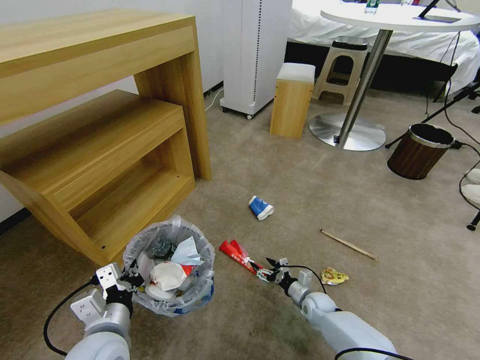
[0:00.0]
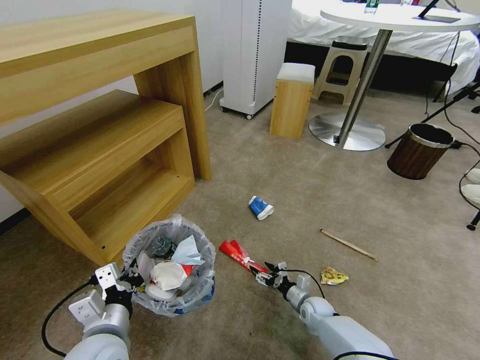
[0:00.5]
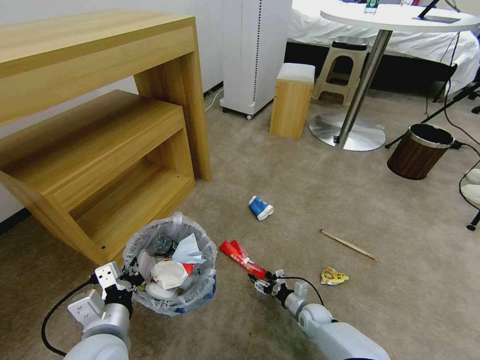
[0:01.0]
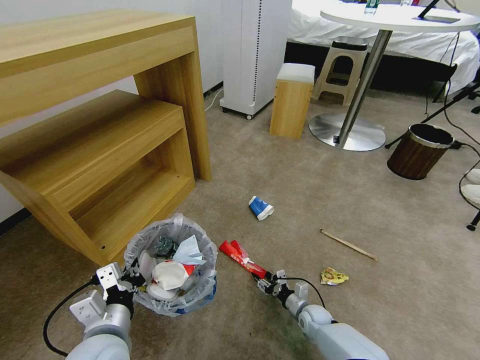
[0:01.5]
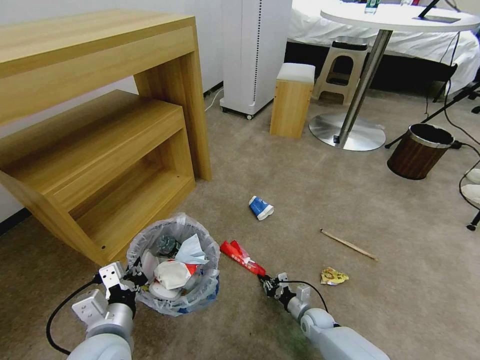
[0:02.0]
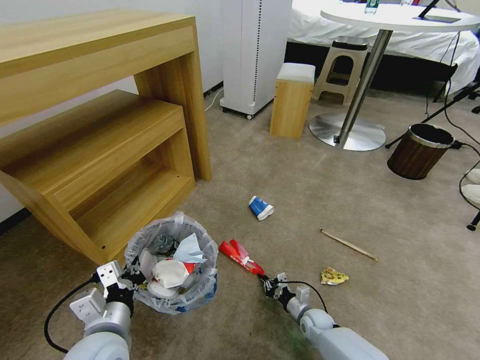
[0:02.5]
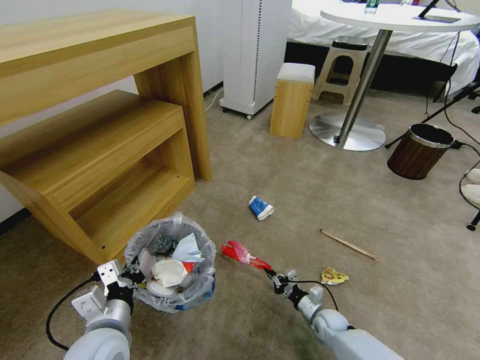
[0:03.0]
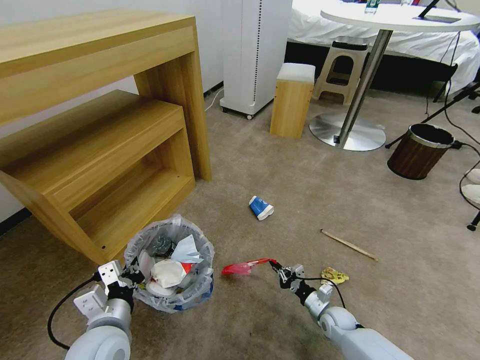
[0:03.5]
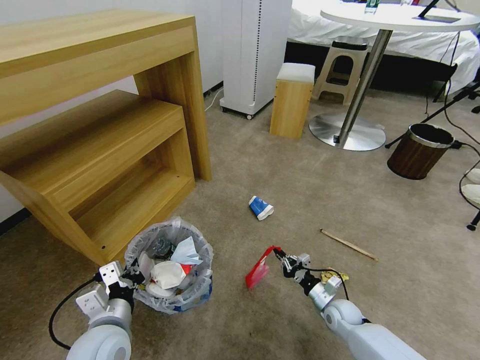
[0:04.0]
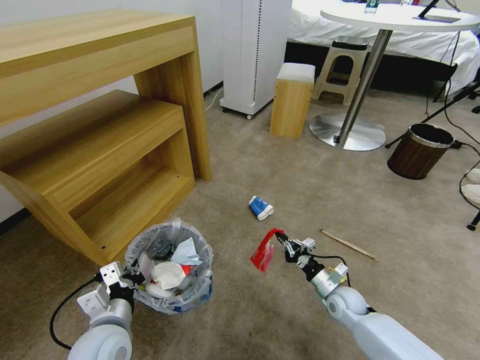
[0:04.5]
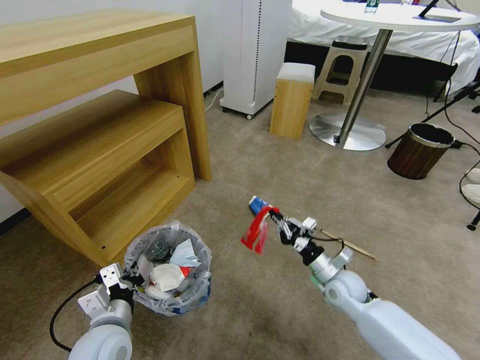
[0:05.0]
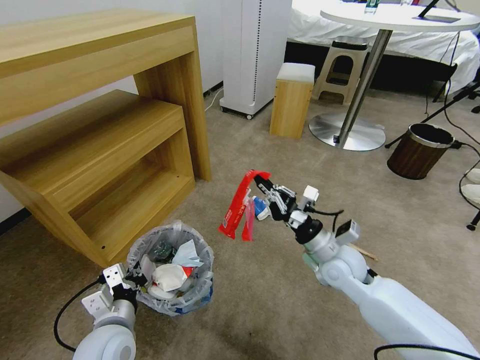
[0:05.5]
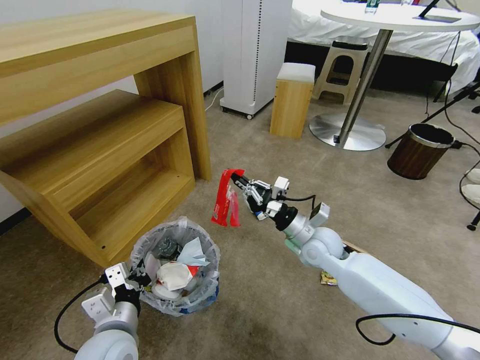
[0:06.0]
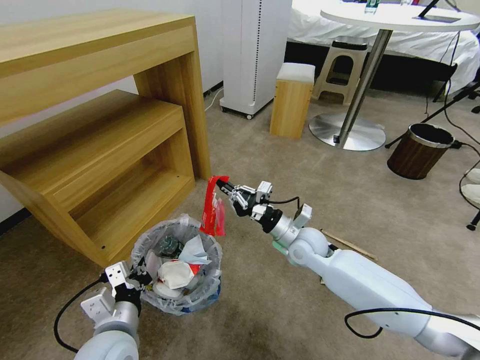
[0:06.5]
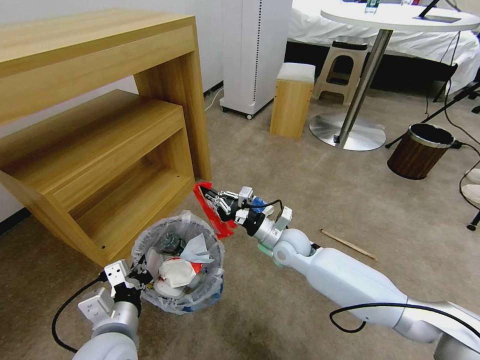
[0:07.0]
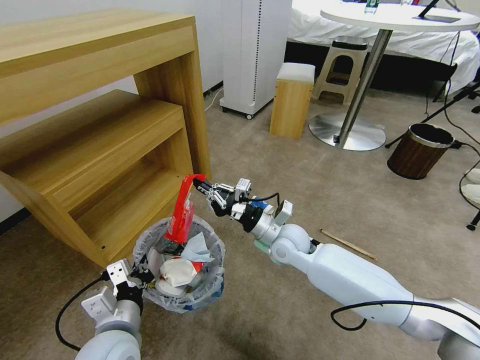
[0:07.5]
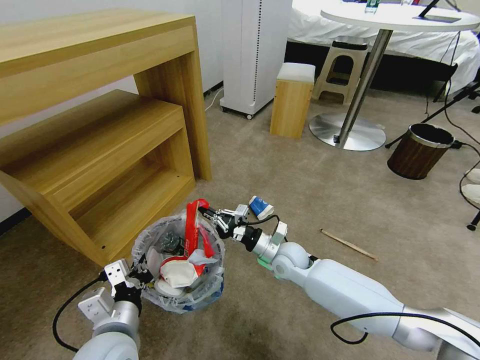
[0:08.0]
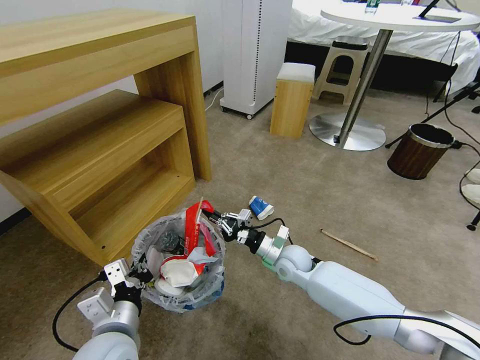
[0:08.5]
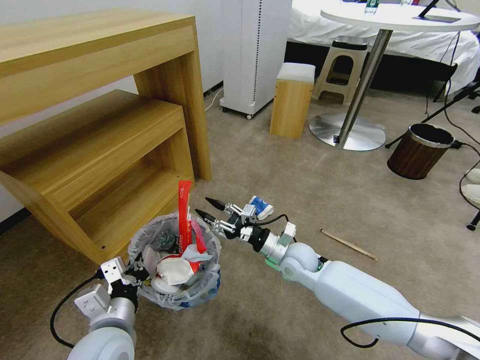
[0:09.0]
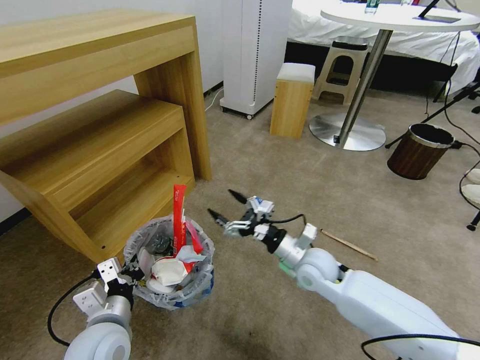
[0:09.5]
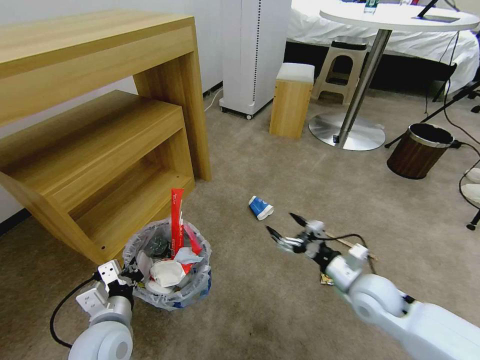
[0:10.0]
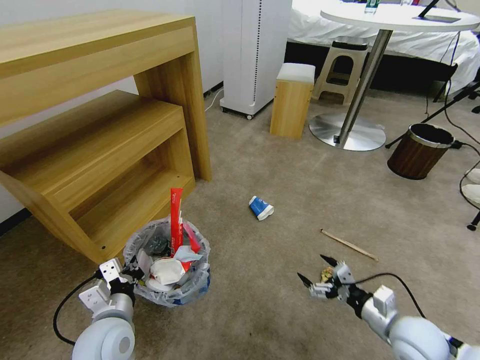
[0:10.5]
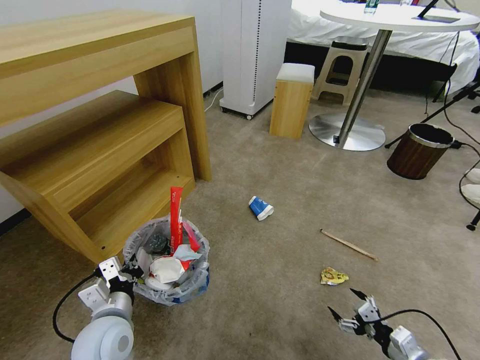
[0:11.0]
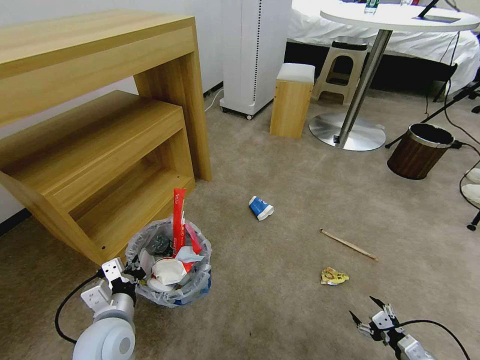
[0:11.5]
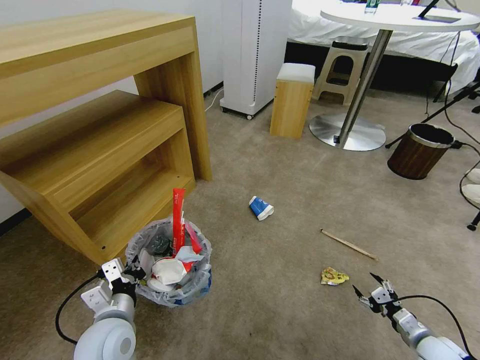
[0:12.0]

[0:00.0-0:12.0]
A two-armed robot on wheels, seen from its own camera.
Task of the whole recording: Pick up the trash bin and place the garbage on the floor into it.
0:00.0 to 0:02.0: The right gripper closes its fingers.
0:02.0 to 0:04.0: The right gripper shifts roughly 10 cm upward and to the right.
0:04.0 to 0:06.0: The right gripper moves upward and to the left, roughly 25 cm.
0:06.0 to 0:08.0: The right gripper is displaced downward and to the left by roughly 10 cm.
0:08.0 to 0:10.0: The left gripper changes place by approximately 5 cm. Meanwhile the right gripper moves to the right and backward, roughly 20 cm, and opens.
0:10.0 to 0:12.0: The right gripper shifts some 25 cm to the right, downward and backward.

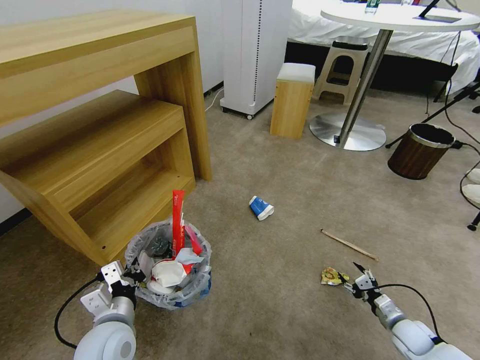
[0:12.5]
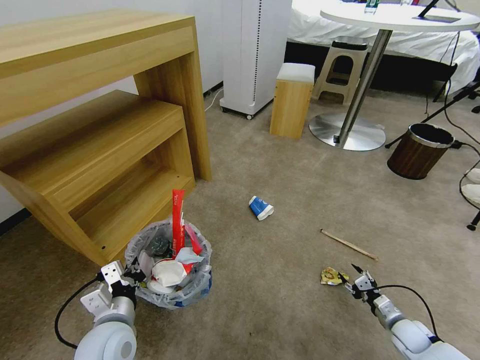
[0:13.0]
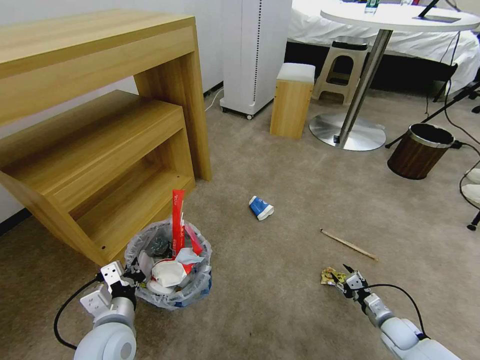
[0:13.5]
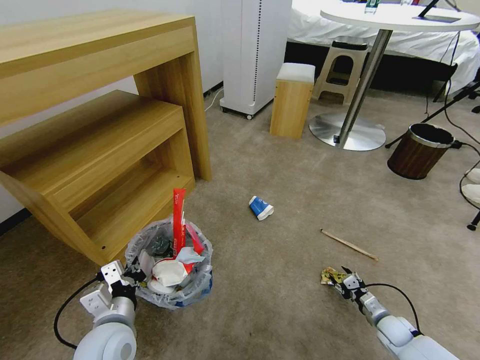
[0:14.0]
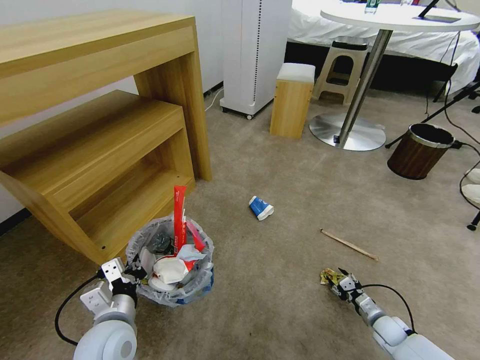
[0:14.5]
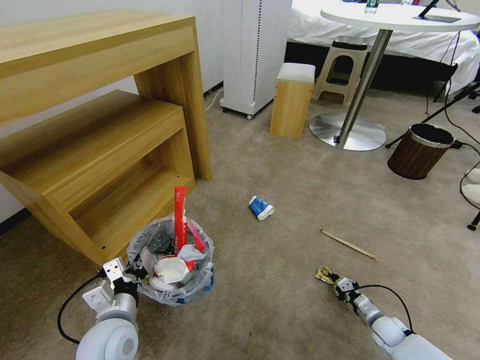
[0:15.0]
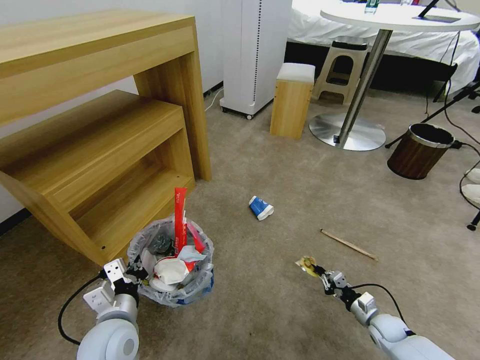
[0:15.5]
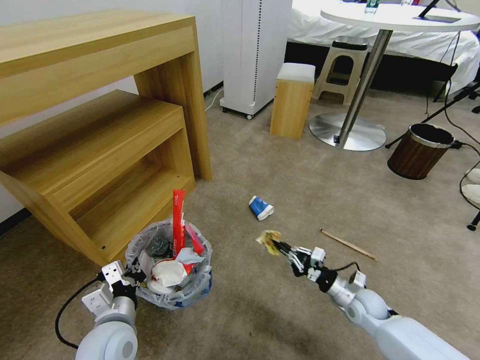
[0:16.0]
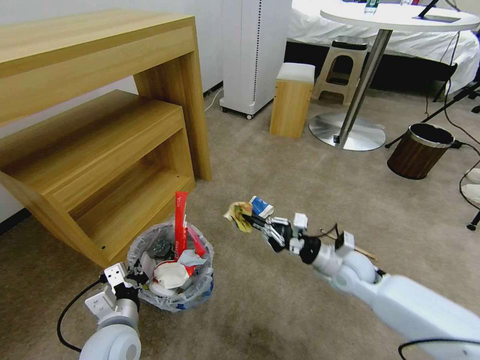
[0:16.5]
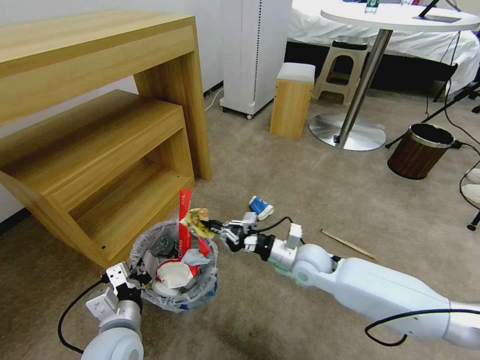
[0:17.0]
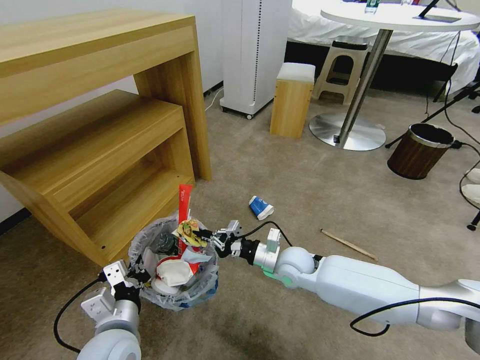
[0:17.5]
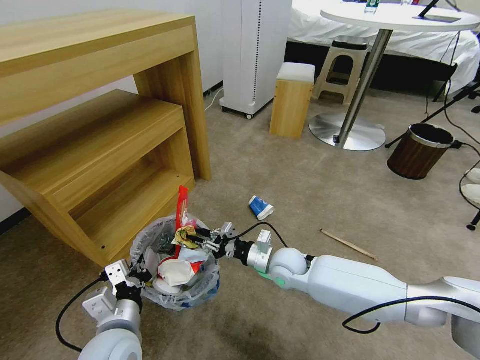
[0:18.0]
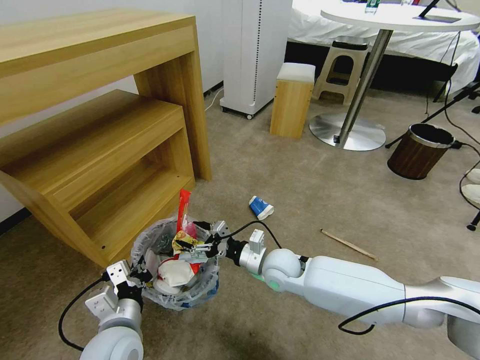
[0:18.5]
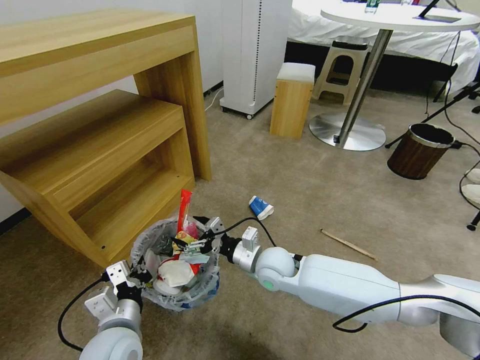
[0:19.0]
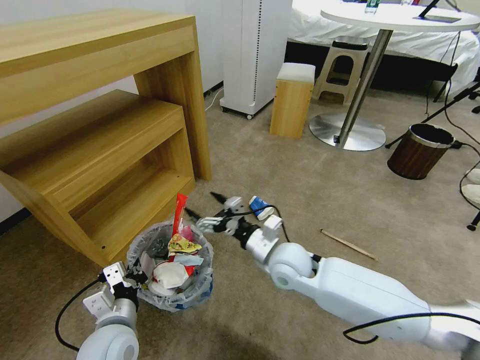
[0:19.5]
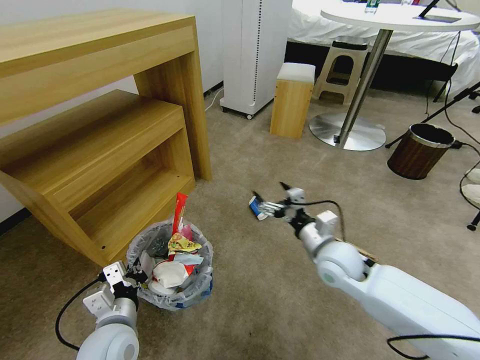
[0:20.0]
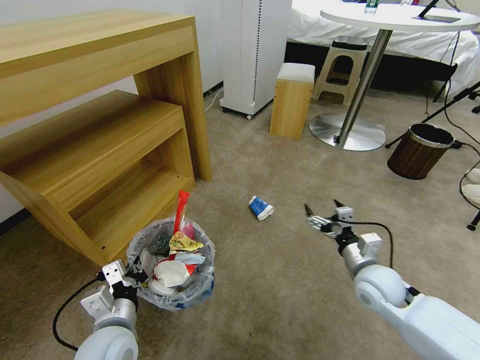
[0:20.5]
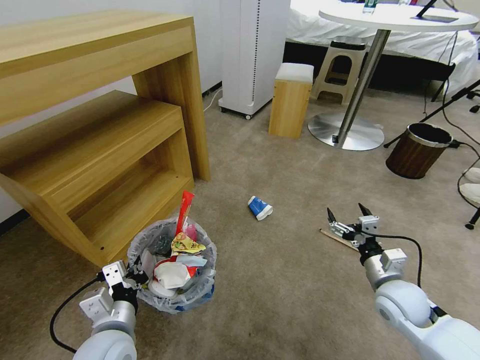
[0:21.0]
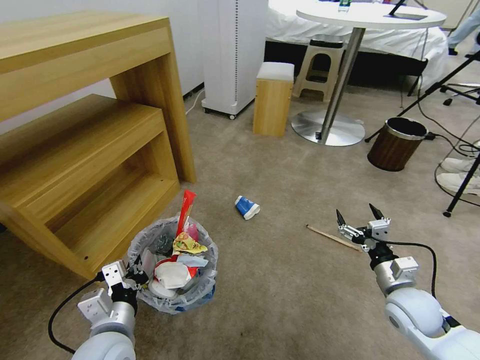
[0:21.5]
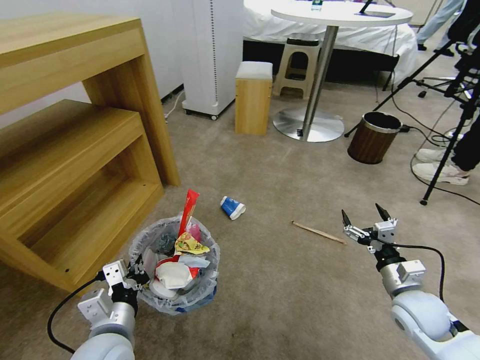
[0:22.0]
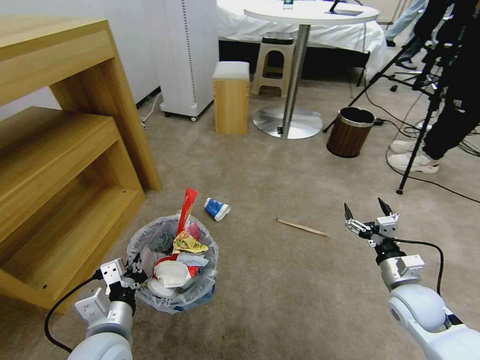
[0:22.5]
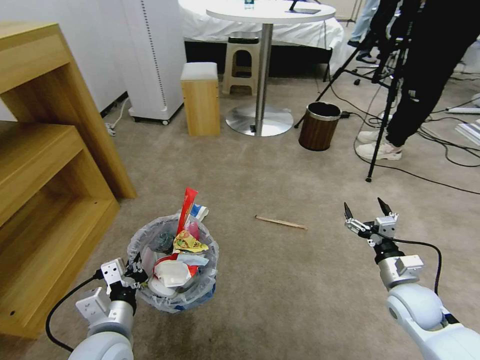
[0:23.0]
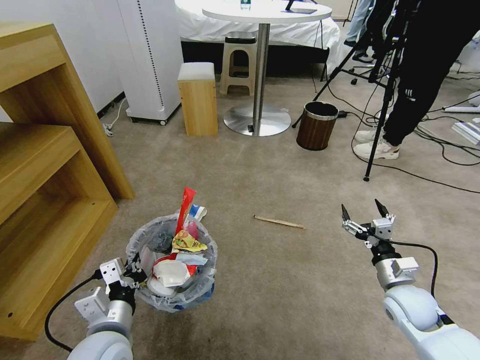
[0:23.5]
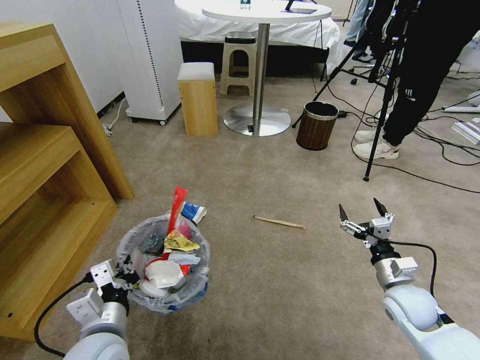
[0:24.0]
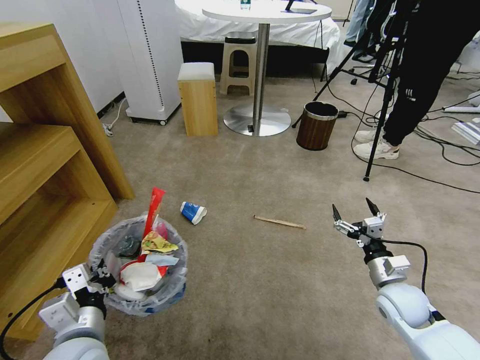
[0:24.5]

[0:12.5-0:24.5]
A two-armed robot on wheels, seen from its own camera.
Task of the whole recording: Pick up the trash bin and place the garbage on the floor into it.
0:12.5 to 0:14.5: The right gripper is displaced downward by roughly 5 cm.
0:14.5 to 0:16.5: The right gripper is displaced upward and to the left by approximately 30 cm, and closes up.
0:16.5 to 0:18.5: The right gripper is displaced to the left by roughly 15 cm, and opens.
0:18.5 to 0:20.5: The right gripper is displaced to the right by roughly 20 cm.
0:20.5 to 0:22.5: The right gripper shifts roughly 10 cm to the right.

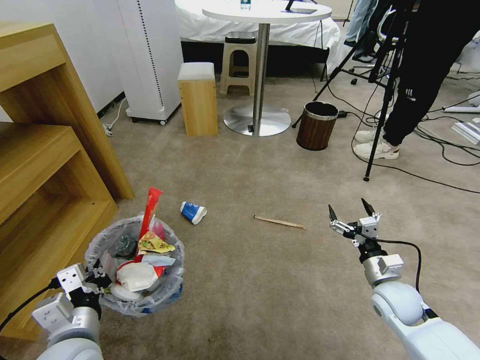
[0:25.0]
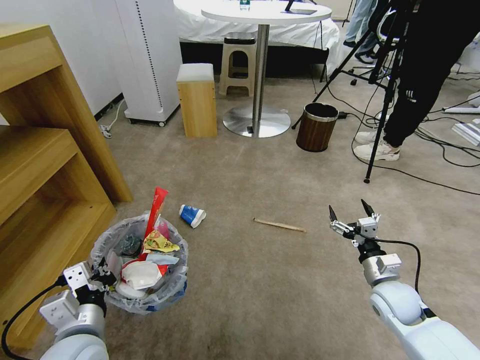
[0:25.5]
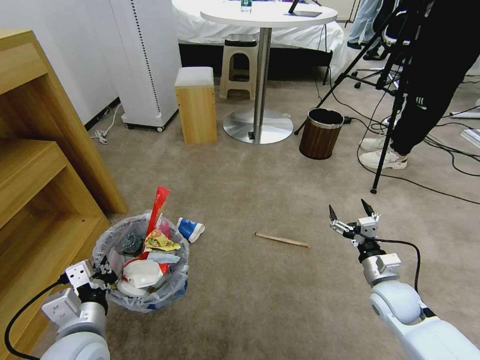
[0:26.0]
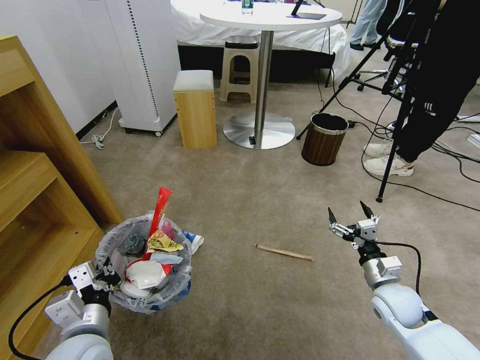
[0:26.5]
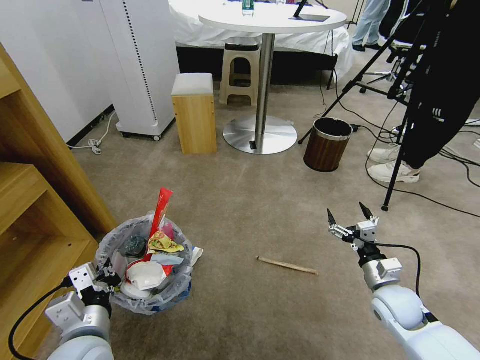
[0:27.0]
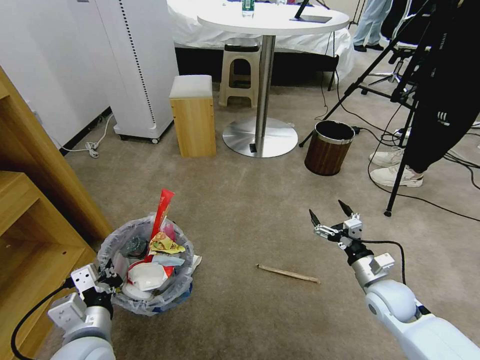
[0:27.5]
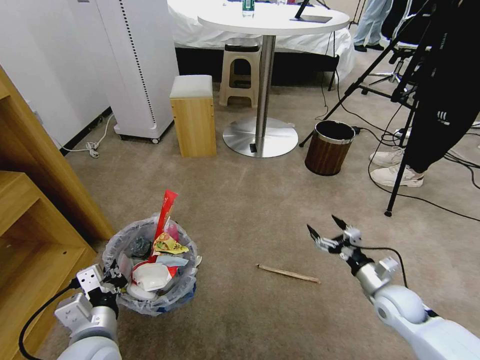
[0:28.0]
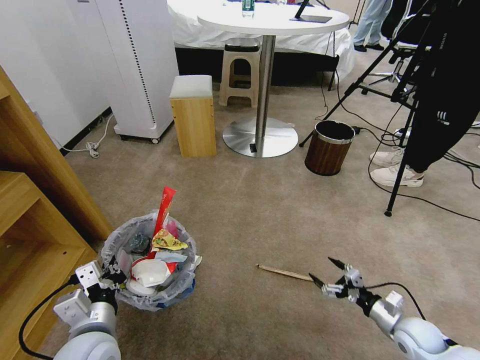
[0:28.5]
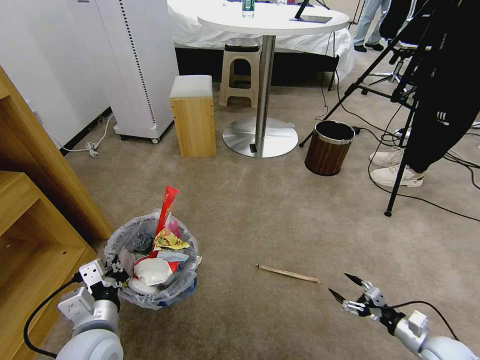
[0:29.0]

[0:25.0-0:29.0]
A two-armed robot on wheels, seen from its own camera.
Task of the whole recording: Pick up the trash bin and place the garbage on the floor into it.
0:27.0 to 0:29.0: The right gripper heads to the right, downward and backward, covering some 20 cm.
